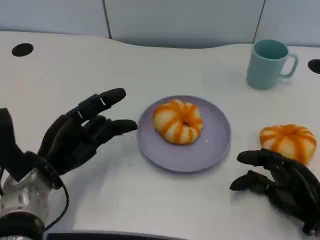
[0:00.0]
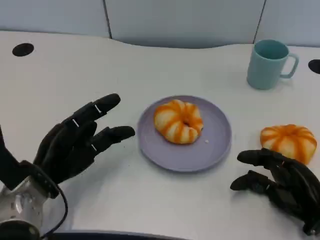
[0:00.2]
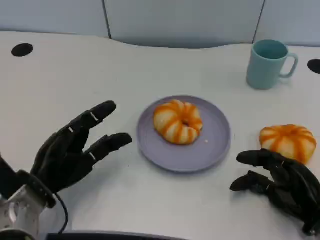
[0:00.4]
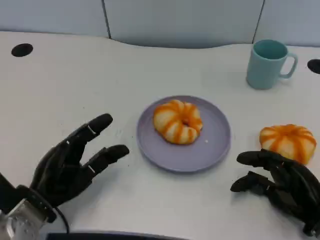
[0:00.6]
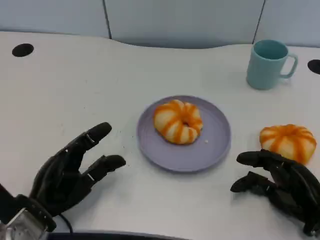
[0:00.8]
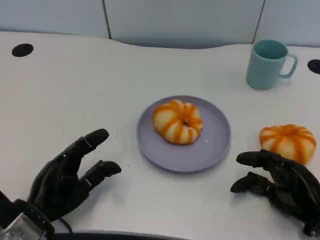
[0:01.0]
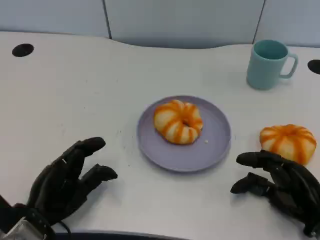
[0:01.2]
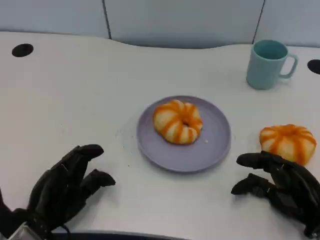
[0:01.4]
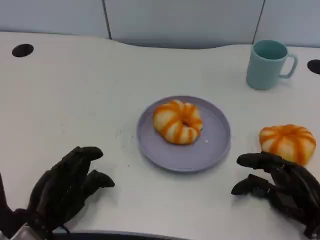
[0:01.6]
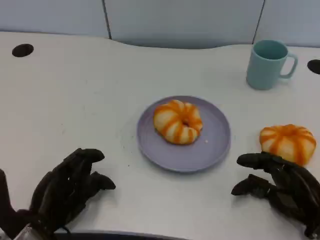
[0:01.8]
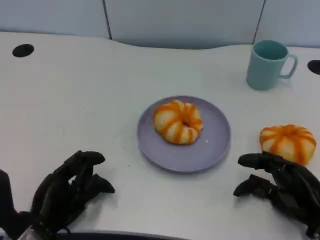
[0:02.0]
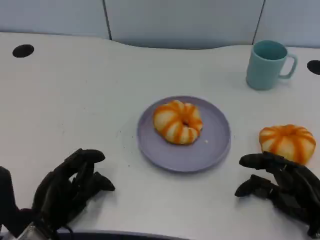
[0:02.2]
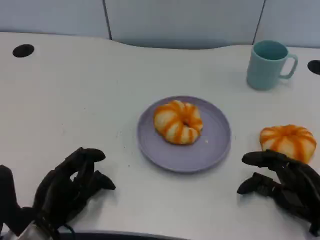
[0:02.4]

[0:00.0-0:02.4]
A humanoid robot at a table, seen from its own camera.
Task of the whole recording: Grasp the bread from the table and place it into the plate.
0.0 to 1.2 s: The left hand travels backward by some 5 cm.
1.2 to 2.4 s: There are only small adjustments of the hands.

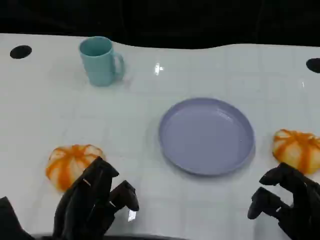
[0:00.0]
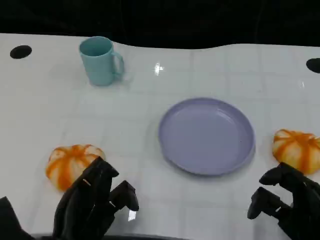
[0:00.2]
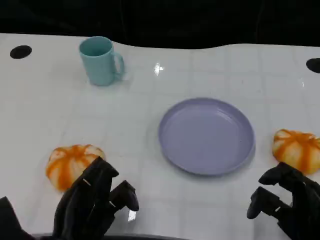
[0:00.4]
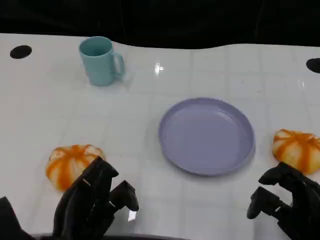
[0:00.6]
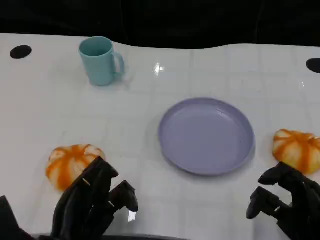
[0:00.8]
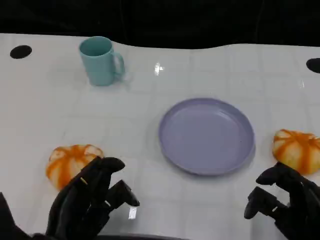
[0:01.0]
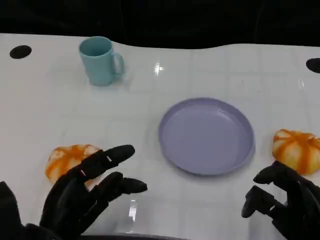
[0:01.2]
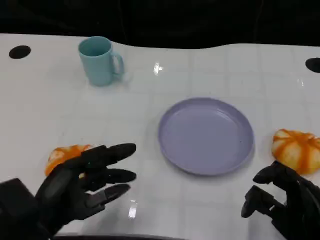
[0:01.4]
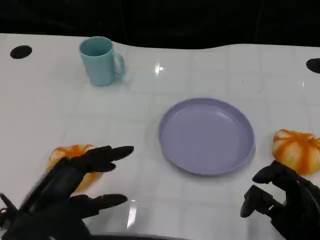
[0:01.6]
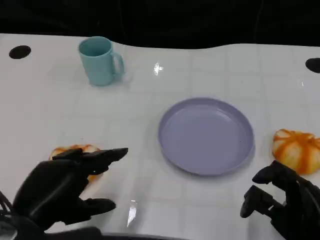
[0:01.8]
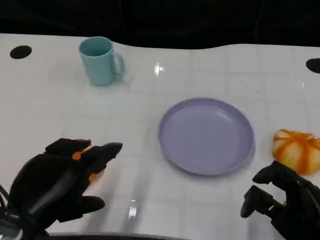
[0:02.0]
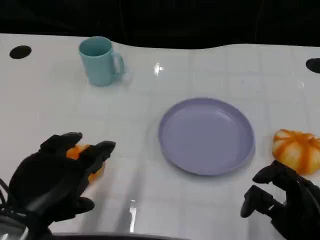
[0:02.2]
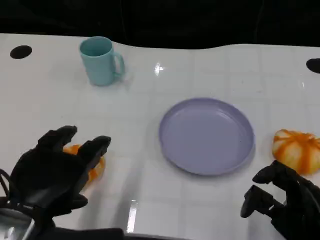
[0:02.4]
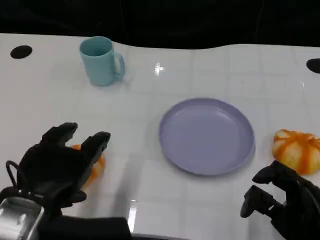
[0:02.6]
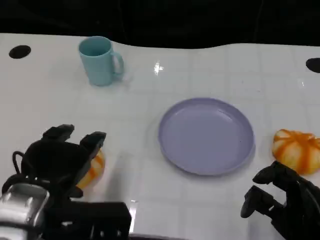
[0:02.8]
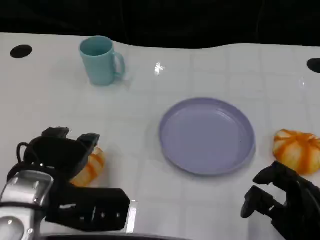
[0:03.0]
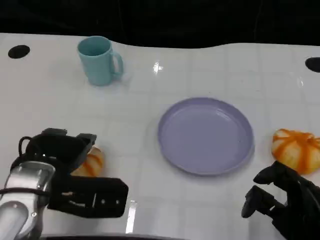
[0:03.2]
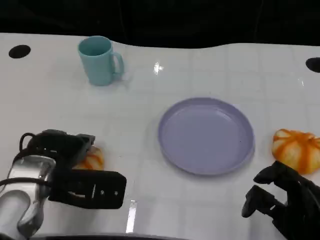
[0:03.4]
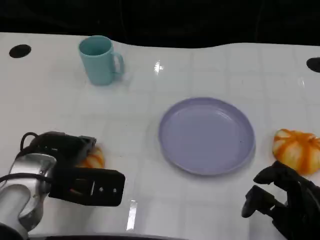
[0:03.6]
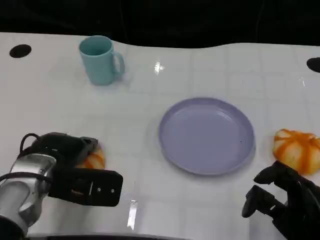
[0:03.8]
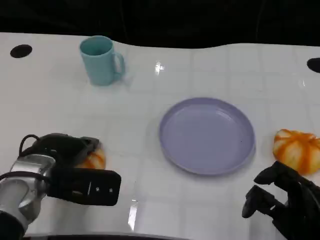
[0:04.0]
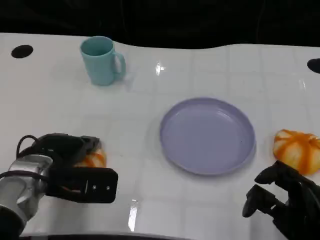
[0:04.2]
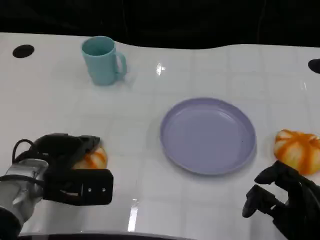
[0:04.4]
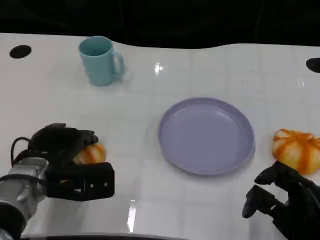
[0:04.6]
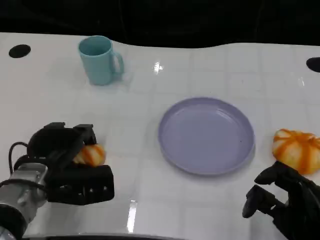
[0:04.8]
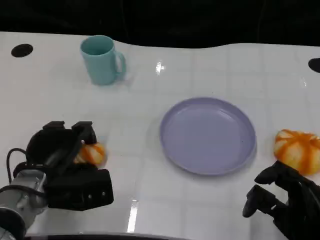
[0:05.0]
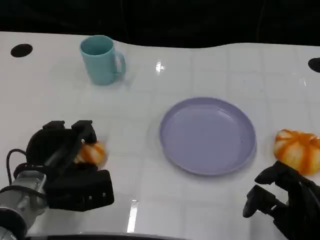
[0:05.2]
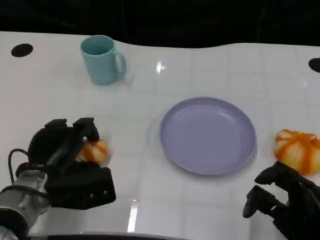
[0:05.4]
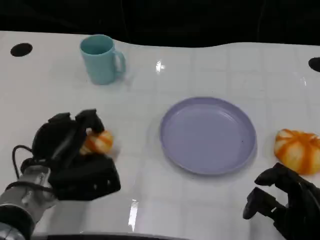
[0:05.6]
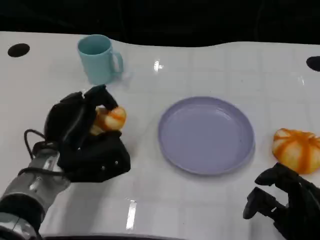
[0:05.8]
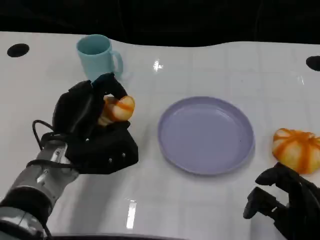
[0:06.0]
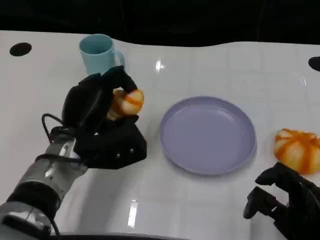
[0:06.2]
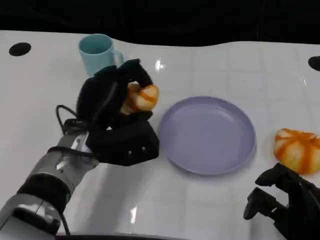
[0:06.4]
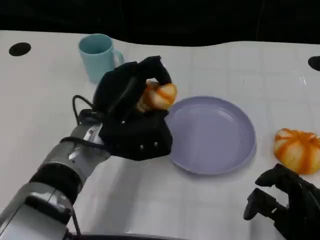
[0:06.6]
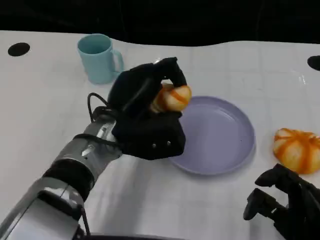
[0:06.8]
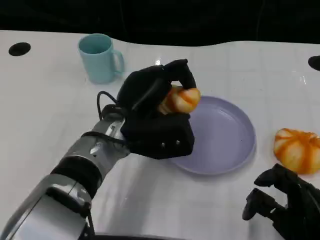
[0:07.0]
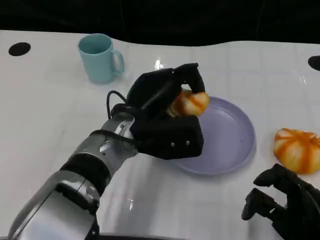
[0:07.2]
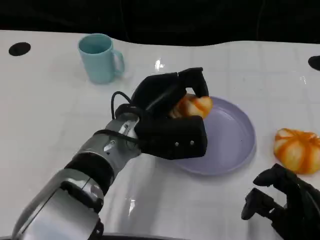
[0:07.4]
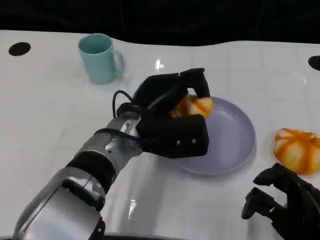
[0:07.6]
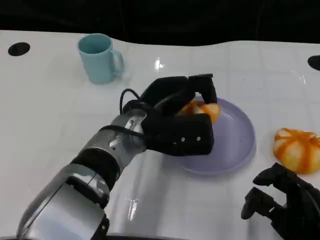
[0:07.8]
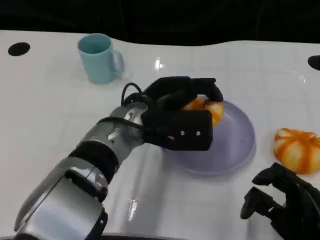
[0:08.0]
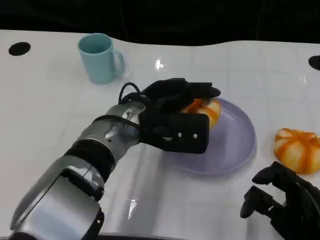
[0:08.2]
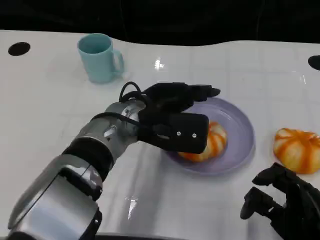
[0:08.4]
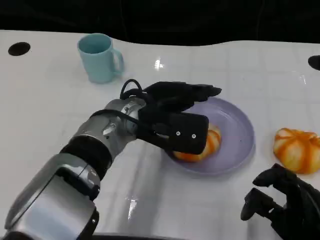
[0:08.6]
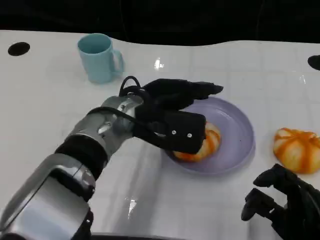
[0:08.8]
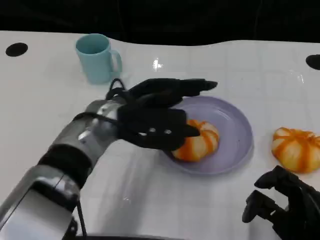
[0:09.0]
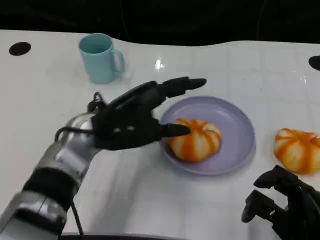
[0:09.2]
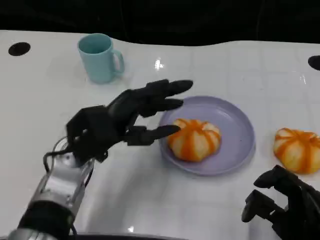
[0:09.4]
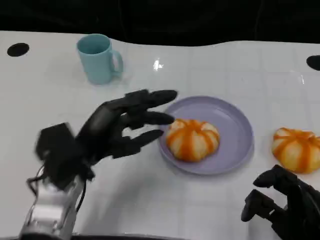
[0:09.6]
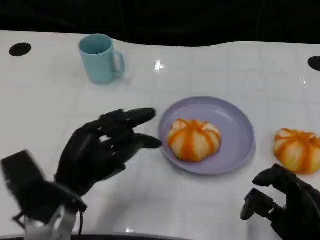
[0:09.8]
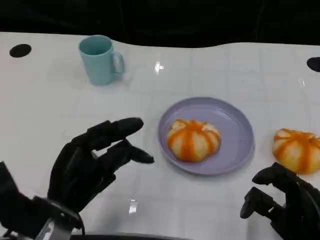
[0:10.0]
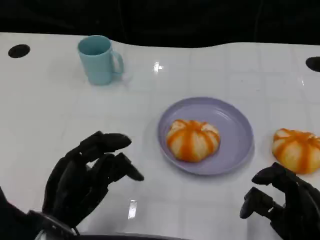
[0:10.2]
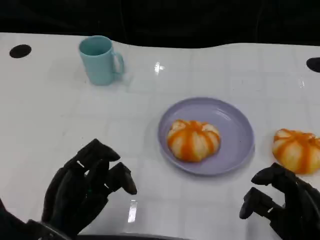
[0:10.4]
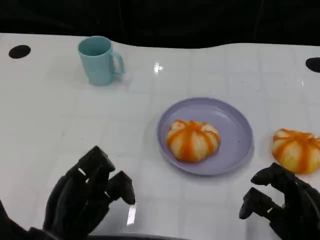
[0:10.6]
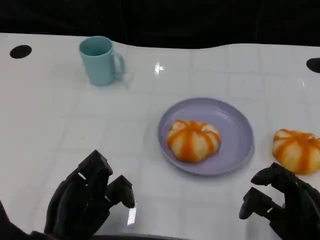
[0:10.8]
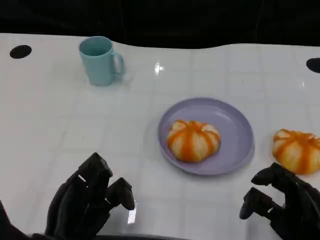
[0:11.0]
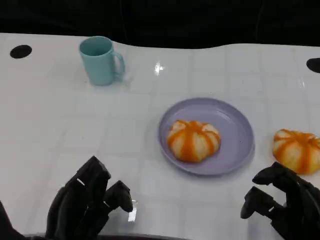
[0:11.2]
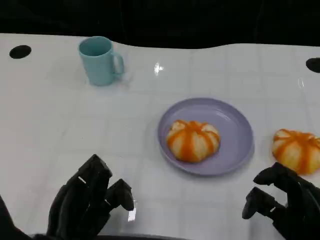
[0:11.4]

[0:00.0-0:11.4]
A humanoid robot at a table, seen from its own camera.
Task of the whole recording: Grasp the bread from the table and place it into the plate.
0.0 to 1.4 s: The left hand heads upward, covering approximately 5 cm.
1.4 to 2.8 s: The left hand moves roughly 5 cm.
2.8 to 4.2 s: The left hand is displaced forward and downward by approximately 10 cm.
5.6 to 7.2 s: The left hand heads to the right and upward, covering roughly 15 cm.
8.6 to 10.0 s: The left hand heads to the left, backward and downward, covering about 20 cm.

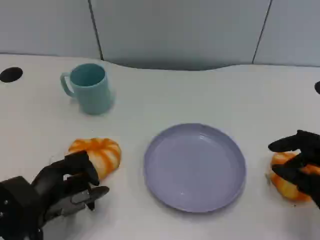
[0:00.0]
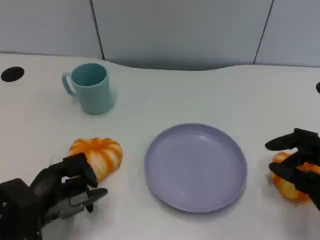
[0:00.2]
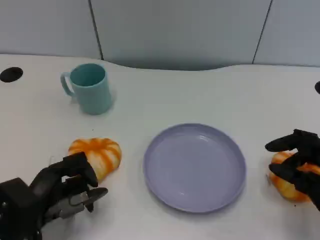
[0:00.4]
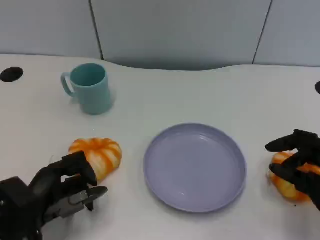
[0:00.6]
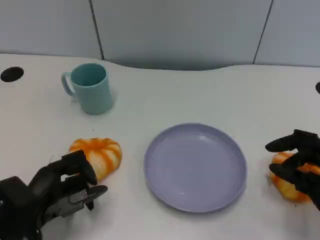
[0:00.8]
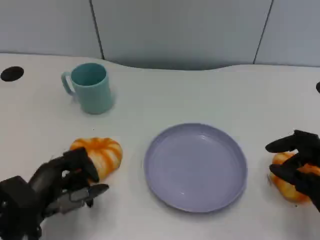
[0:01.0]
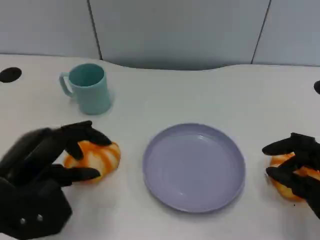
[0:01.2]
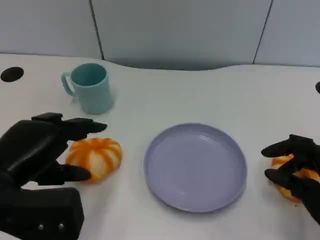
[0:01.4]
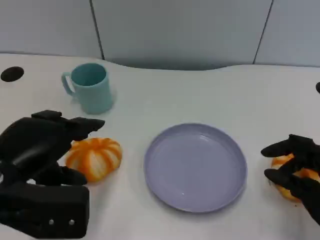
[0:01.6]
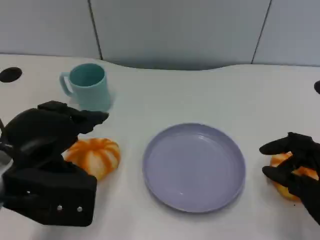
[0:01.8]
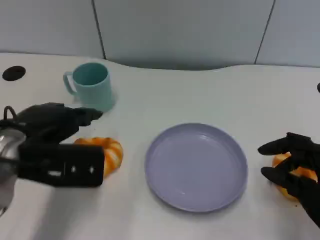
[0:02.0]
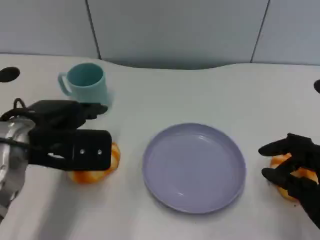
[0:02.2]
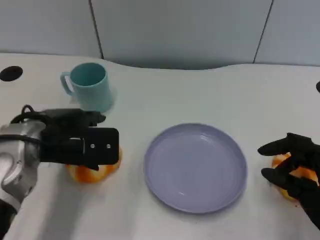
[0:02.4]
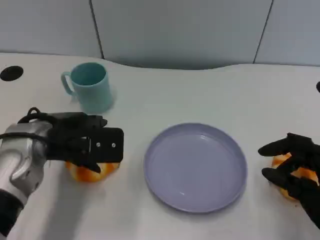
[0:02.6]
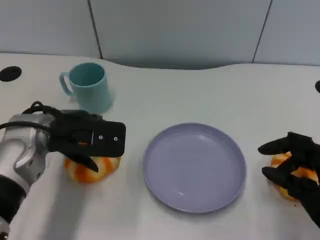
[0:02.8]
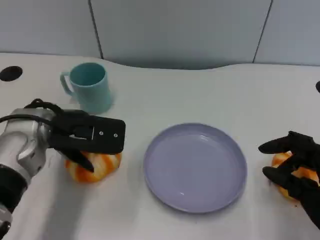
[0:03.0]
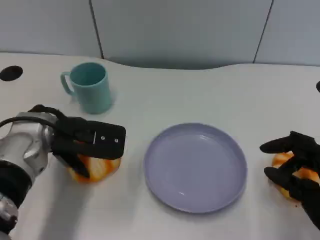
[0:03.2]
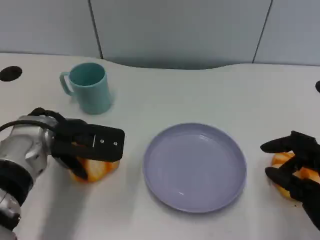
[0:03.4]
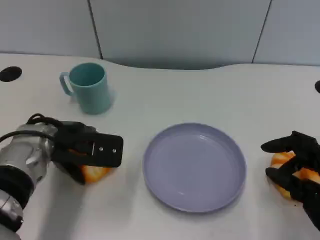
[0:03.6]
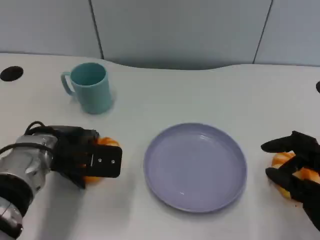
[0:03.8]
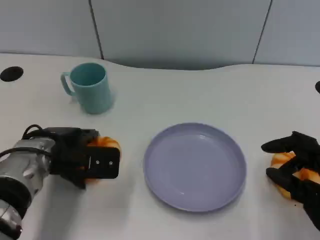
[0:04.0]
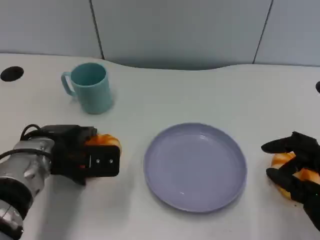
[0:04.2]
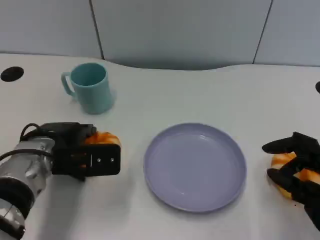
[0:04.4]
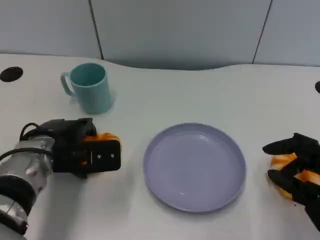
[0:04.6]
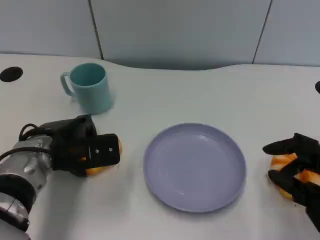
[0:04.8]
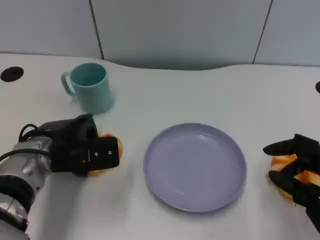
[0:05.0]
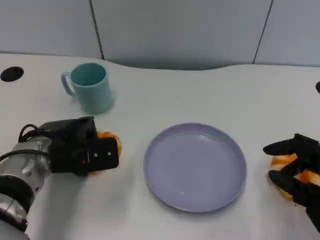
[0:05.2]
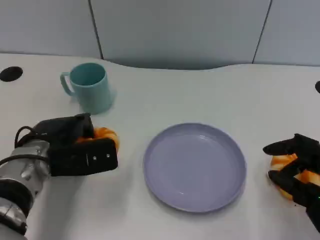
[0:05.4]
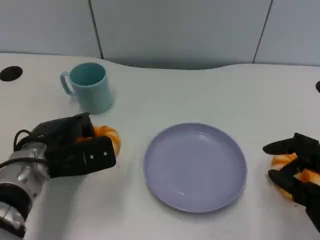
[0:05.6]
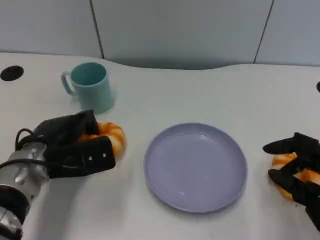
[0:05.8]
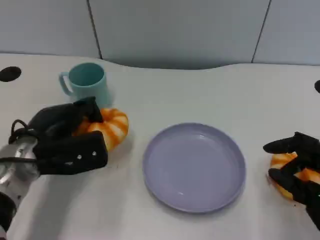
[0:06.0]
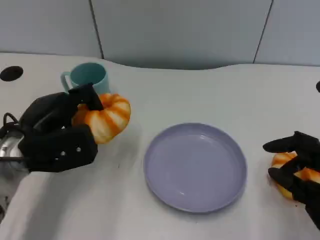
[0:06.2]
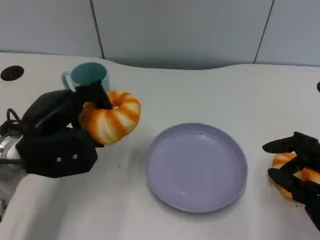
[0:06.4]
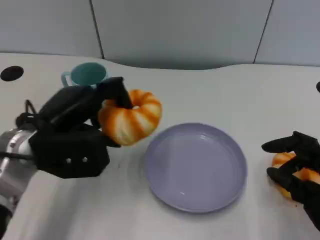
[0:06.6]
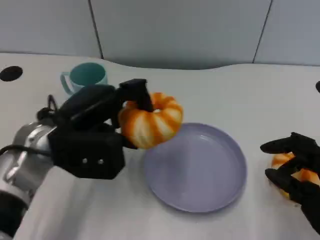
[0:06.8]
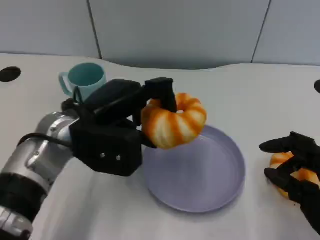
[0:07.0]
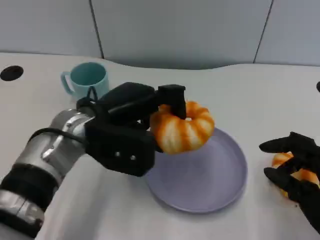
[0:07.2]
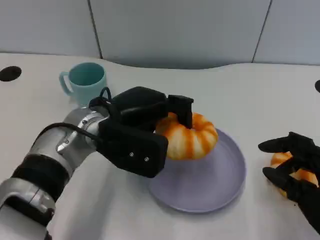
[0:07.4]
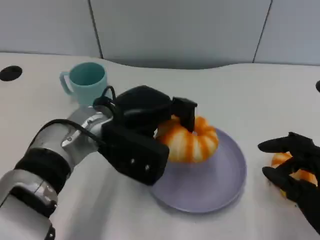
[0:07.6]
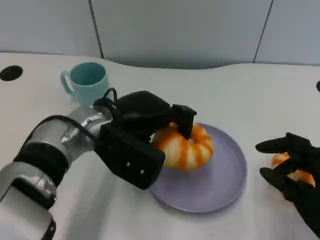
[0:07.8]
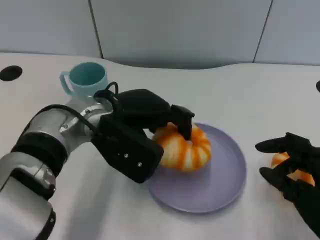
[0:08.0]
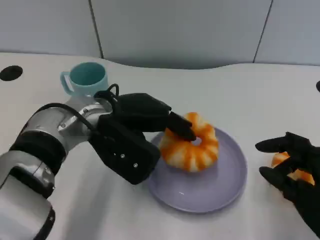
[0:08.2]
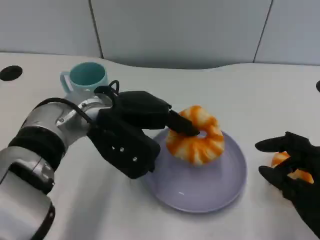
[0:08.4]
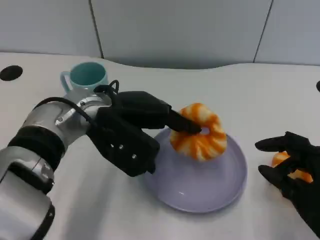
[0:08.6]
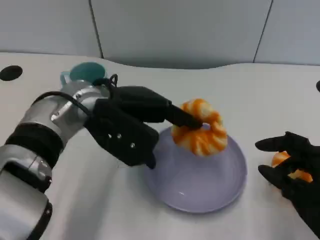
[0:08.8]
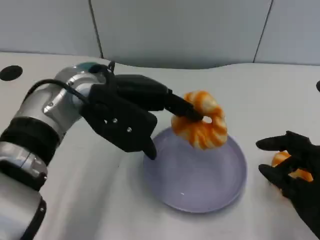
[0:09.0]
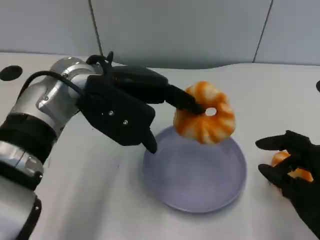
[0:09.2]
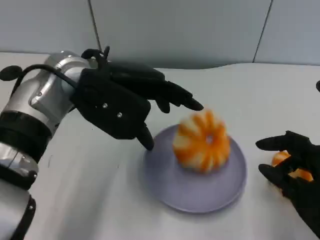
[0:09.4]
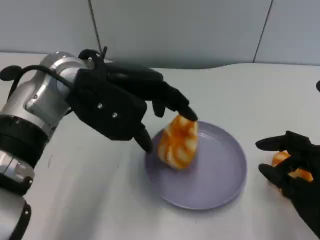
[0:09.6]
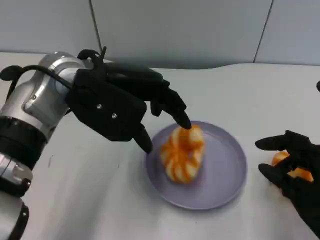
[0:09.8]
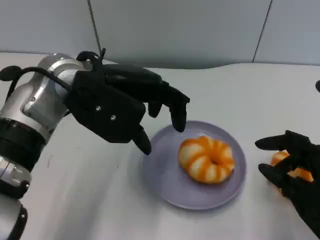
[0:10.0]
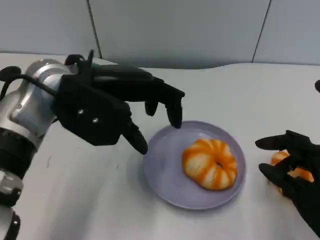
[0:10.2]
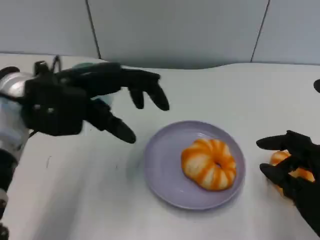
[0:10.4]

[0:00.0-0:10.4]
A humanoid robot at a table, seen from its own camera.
Task of the whole recording: Grasp the bread from the table and place it into the plate.
0.0 to 1.4 s: The left hand is displaced upward by some 10 cm.
1.4 to 3.0 s: The left hand is displaced forward and to the right by about 15 cm.
3.0 to 4.4 s: The left hand shifts about 5 cm downward.
6.0 to 7.4 s: The left hand goes about 10 cm to the right.
7.4 to 9.0 s: The left hand travels upward by roughly 5 cm.
9.0 to 10.4 s: The left hand shifts about 10 cm to the left.
